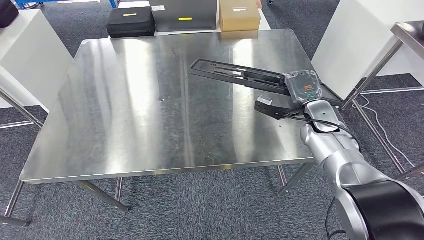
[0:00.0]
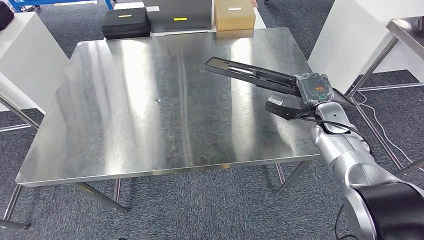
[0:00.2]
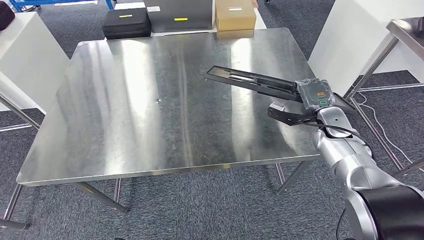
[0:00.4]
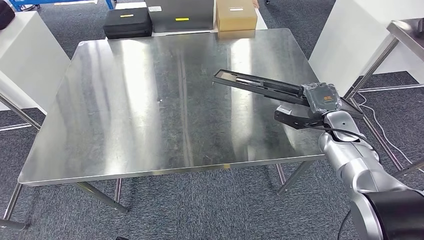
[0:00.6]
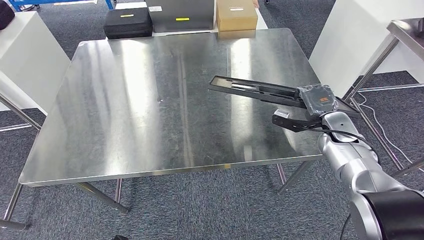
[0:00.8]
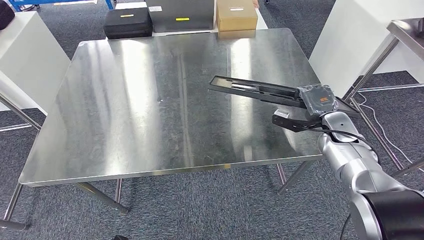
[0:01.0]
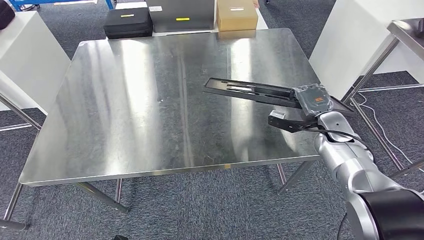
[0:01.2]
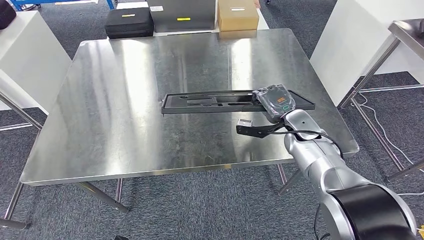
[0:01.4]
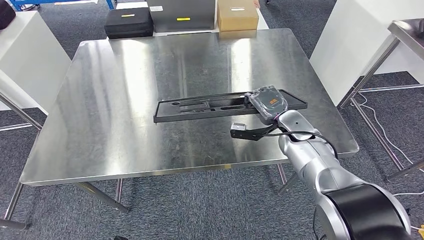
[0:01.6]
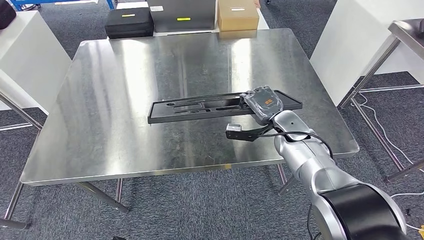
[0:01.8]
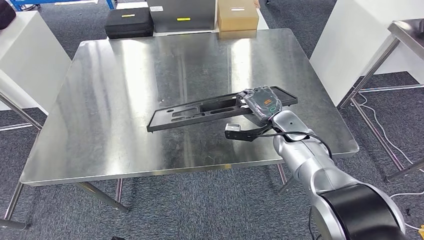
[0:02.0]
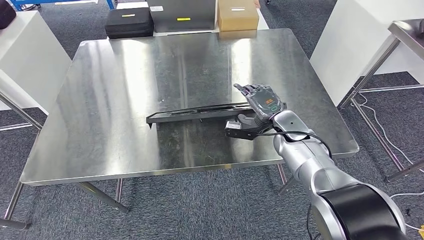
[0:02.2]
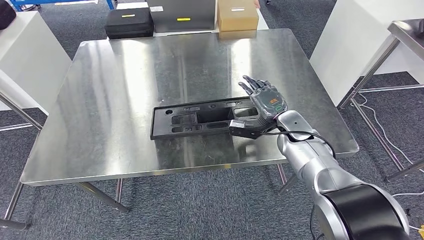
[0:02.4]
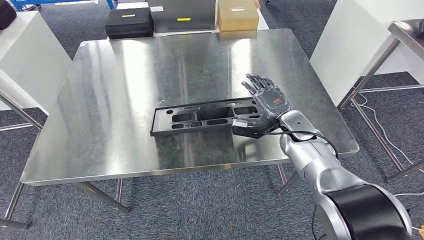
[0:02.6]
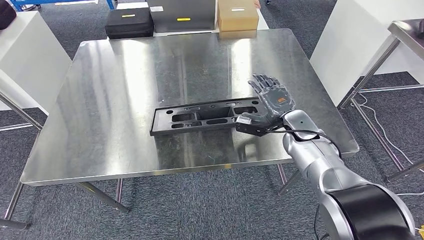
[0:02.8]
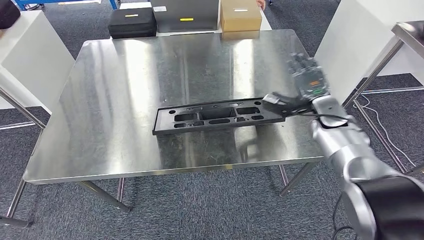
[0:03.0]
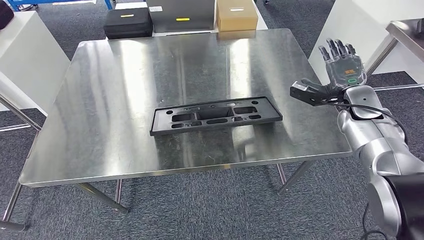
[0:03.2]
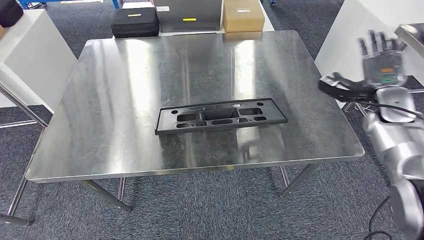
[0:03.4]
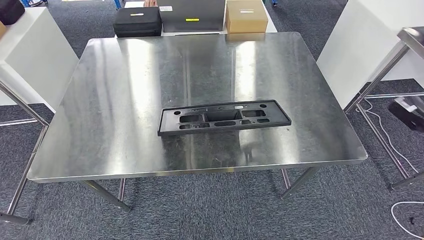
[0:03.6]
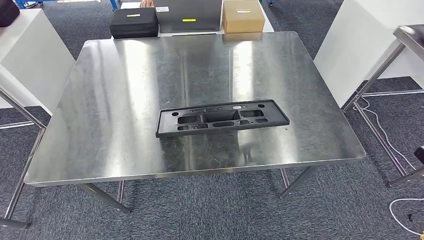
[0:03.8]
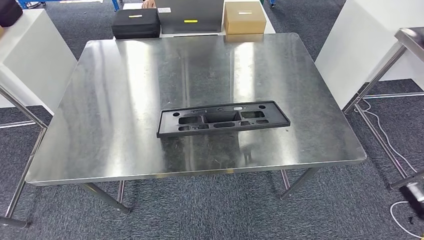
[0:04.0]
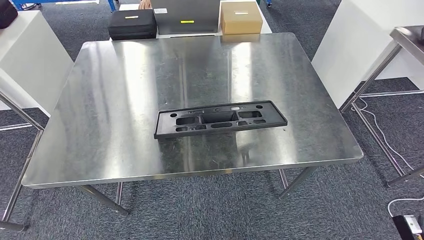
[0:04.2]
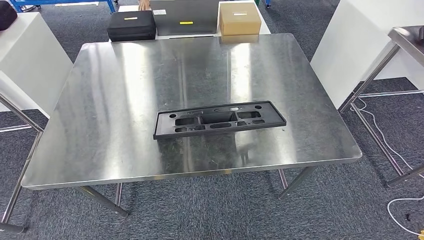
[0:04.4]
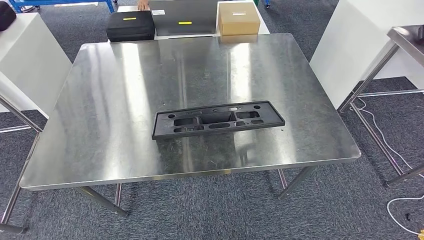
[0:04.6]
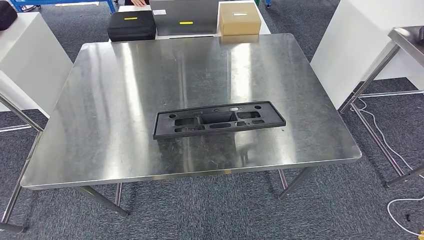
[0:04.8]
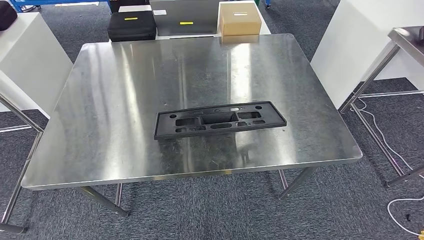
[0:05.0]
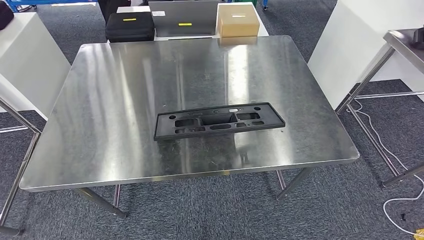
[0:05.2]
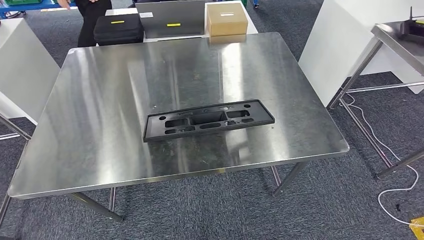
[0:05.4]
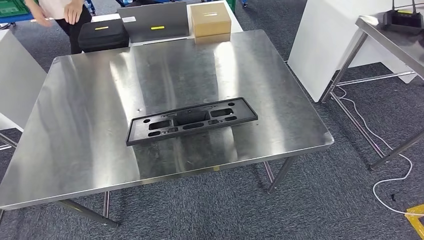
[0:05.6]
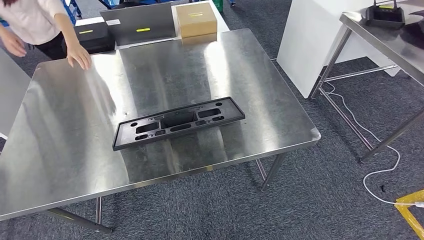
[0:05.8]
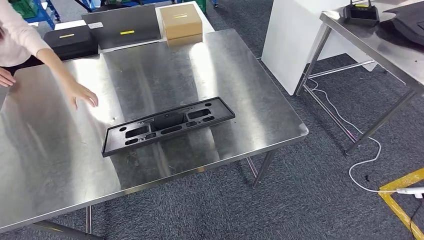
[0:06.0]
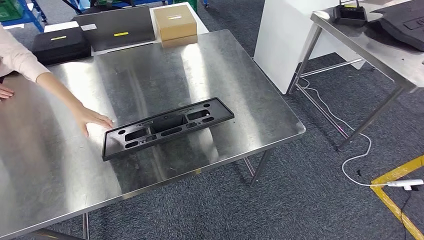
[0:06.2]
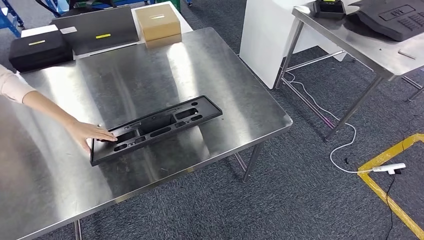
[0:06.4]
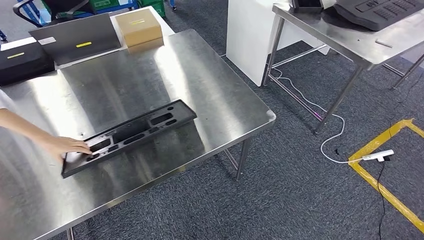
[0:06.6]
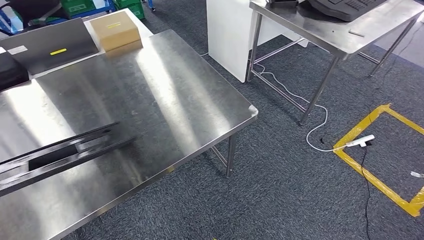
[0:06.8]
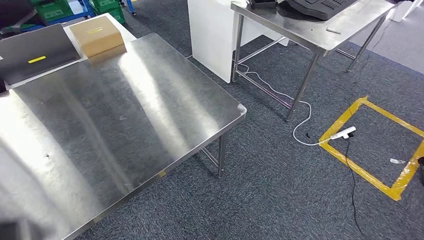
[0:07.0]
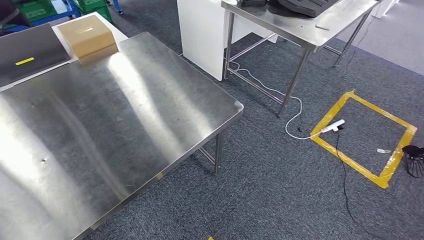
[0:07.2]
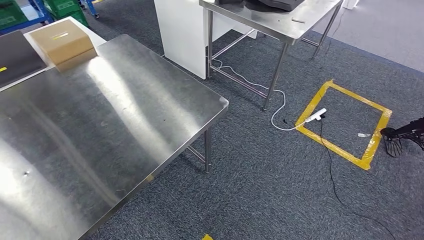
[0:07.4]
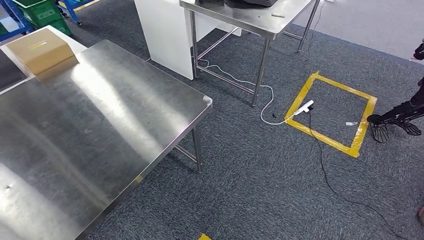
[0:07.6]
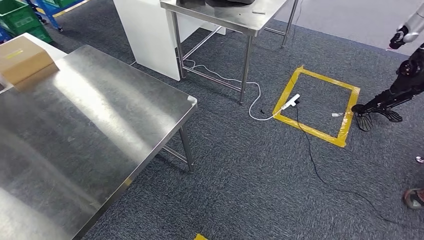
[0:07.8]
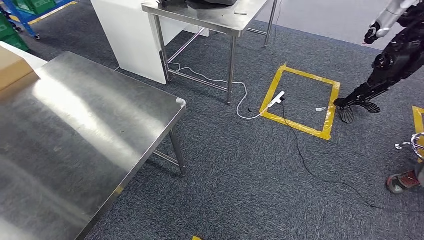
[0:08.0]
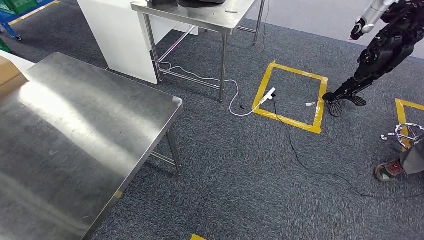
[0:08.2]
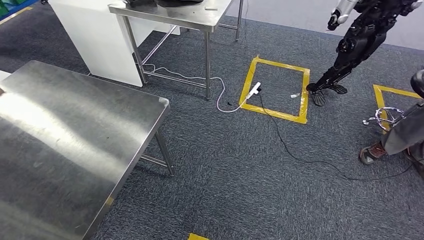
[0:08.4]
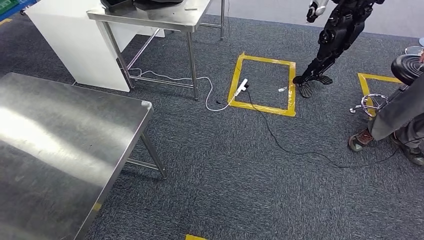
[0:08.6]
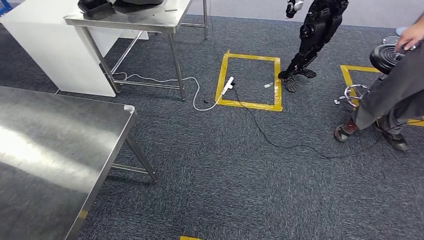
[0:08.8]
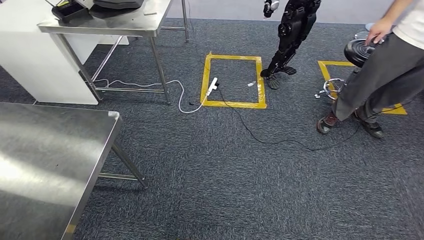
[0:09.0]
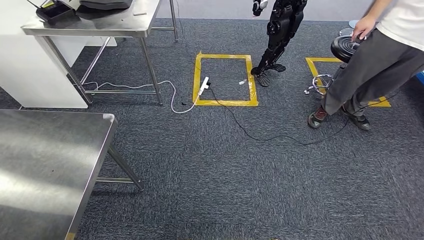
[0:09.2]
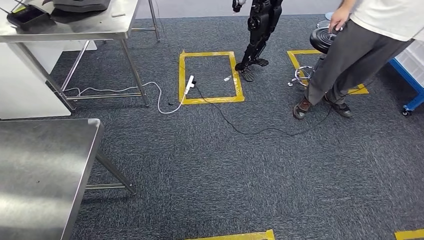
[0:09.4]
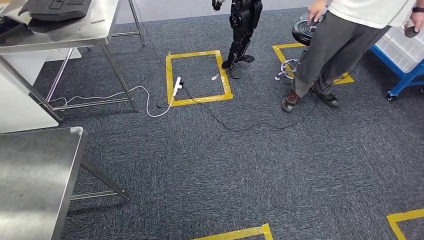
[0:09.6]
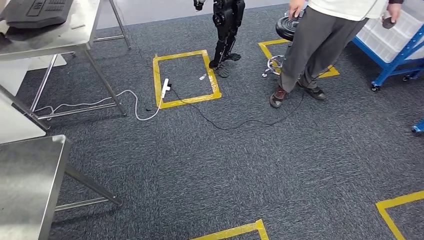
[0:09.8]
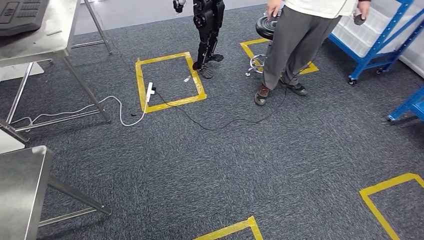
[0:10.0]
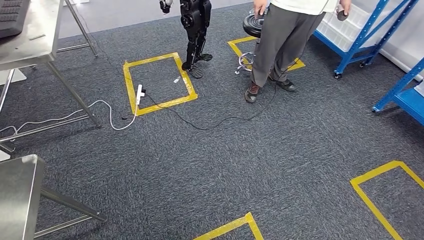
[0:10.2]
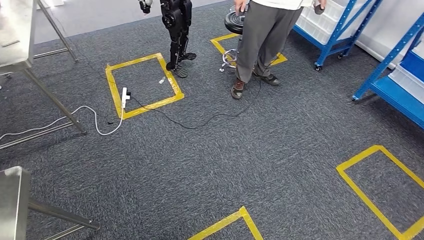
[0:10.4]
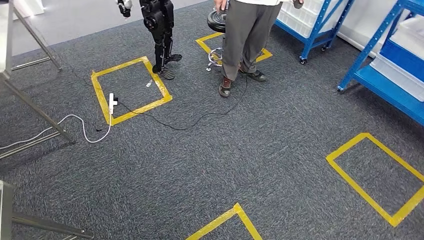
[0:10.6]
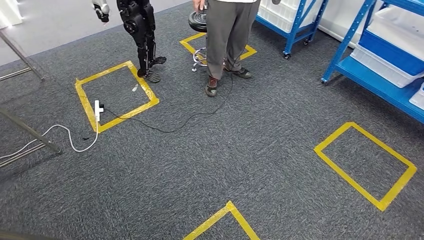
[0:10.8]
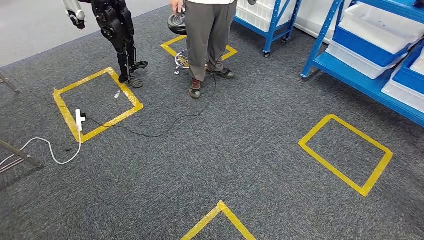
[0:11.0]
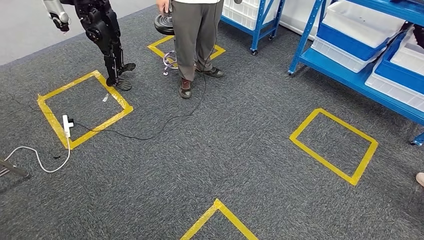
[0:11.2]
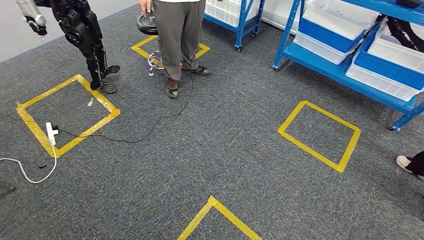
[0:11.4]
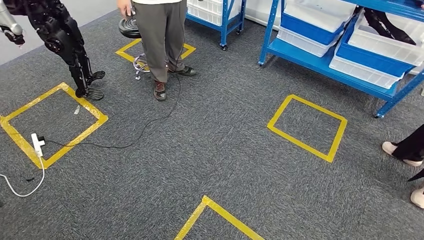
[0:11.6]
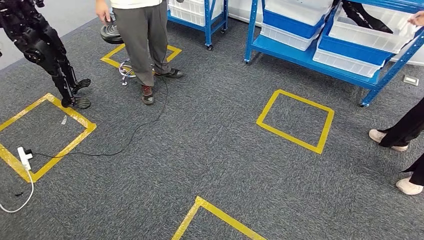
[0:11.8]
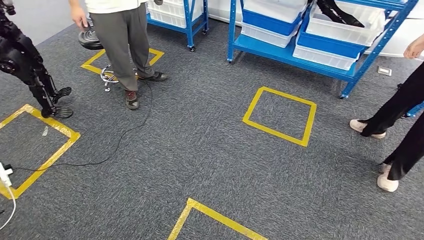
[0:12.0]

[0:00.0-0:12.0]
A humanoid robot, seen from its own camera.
Step, 0:00.0 to 0:04.4: Insert the large material into the corresponding slot on the workbench.

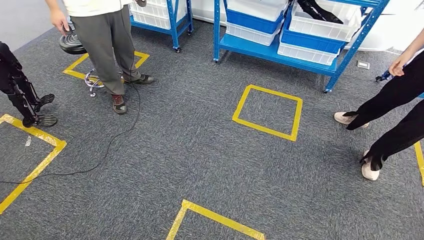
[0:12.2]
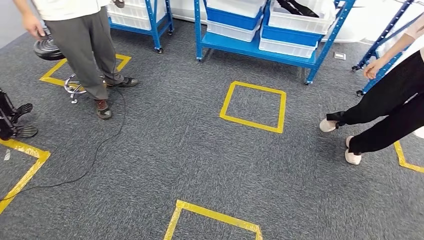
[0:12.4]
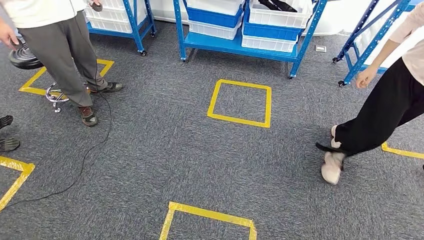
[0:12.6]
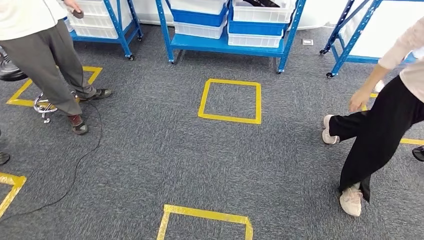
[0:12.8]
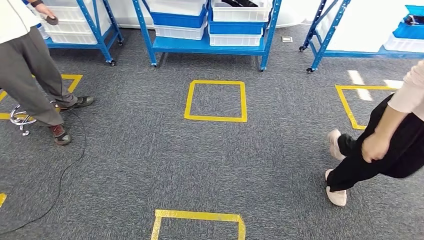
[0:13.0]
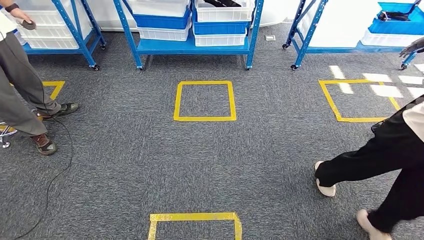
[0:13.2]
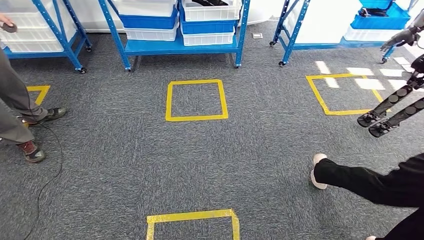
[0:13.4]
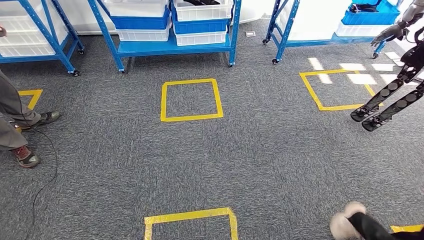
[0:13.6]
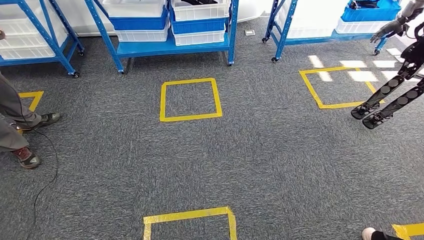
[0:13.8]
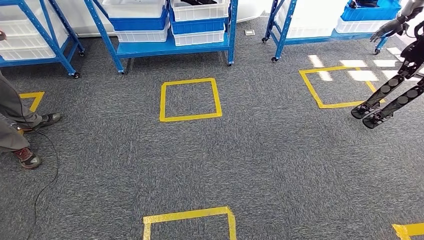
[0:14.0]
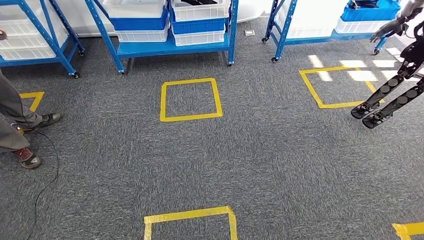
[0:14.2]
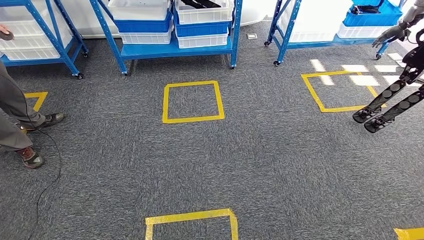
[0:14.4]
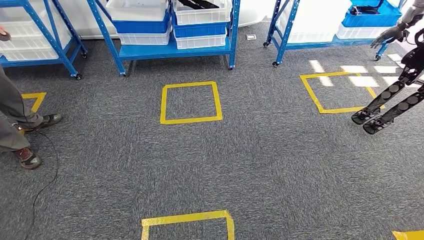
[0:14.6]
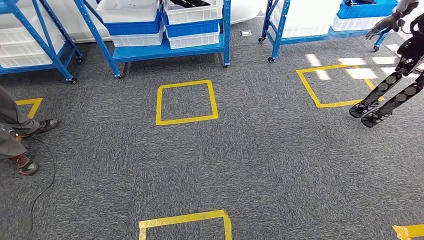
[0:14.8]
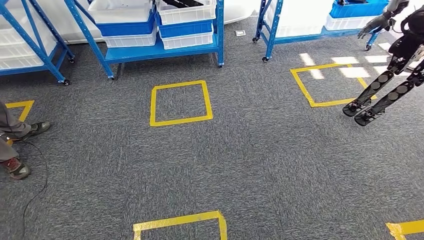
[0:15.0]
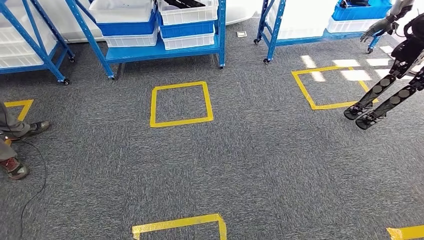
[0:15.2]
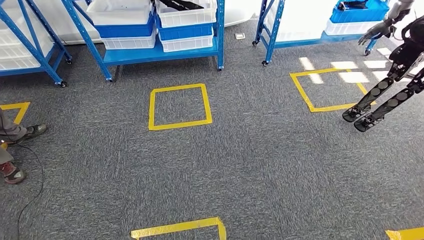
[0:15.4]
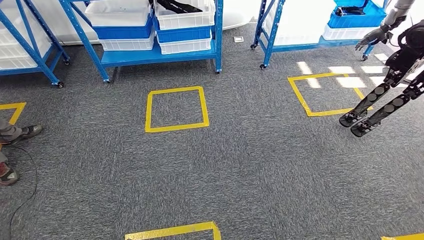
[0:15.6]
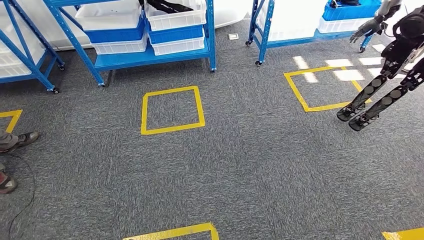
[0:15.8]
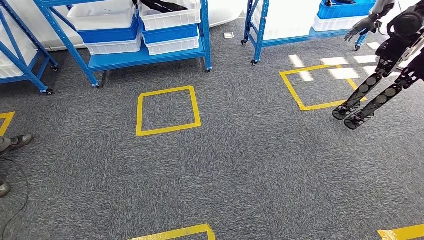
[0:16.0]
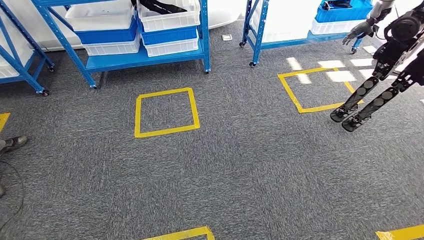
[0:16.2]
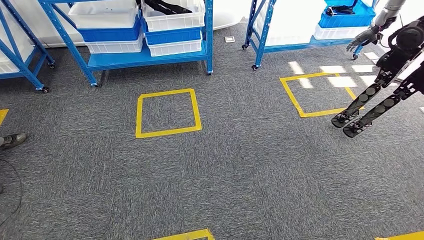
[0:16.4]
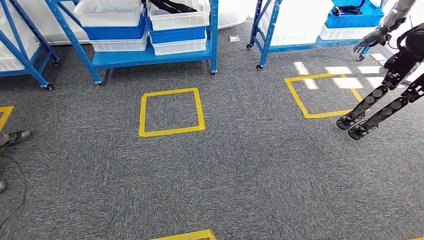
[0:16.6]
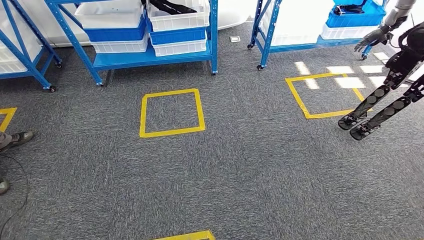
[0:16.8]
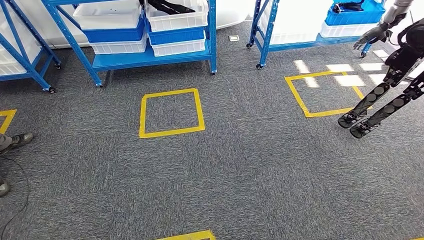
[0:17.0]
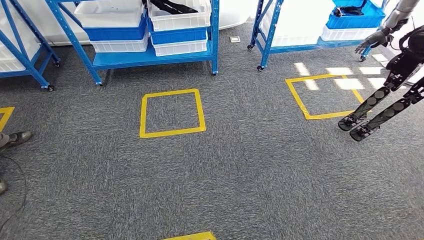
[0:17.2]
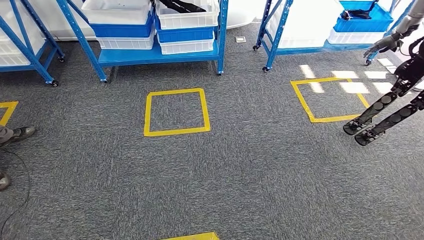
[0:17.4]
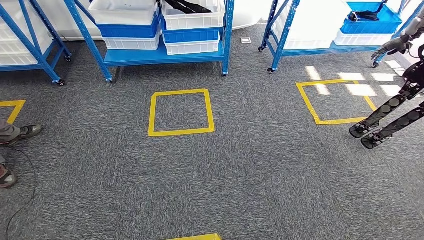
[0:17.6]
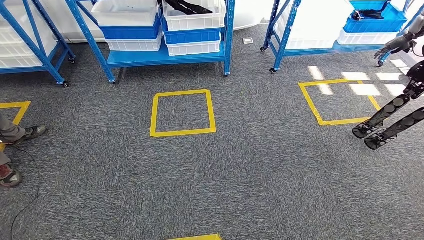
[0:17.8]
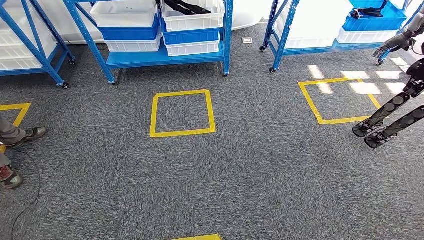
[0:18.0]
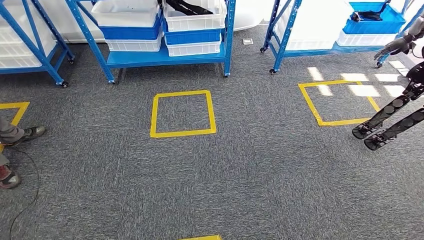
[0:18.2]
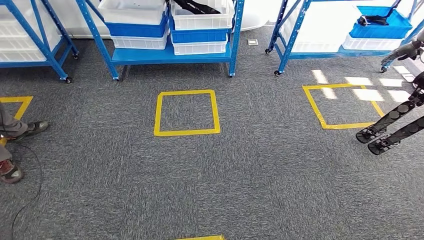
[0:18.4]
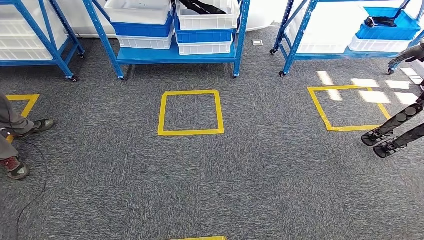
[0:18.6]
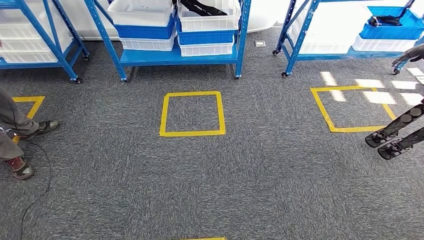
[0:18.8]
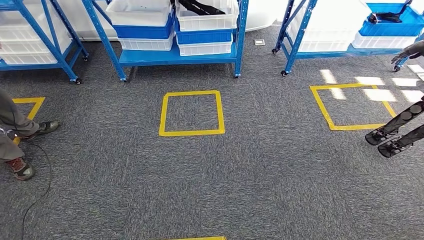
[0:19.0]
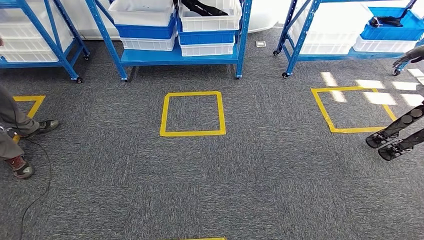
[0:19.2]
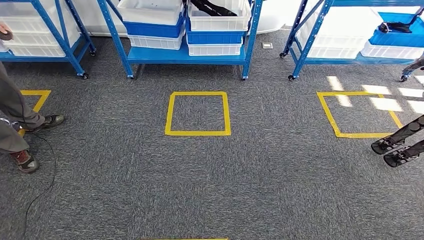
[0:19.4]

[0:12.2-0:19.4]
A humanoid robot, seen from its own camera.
Step, 0:12.2 to 0:19.4: Move to the initial position of the shelf.
